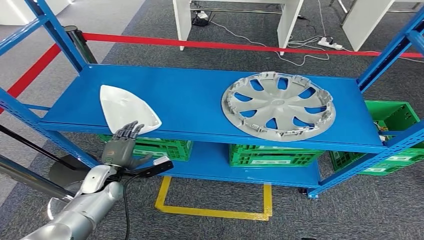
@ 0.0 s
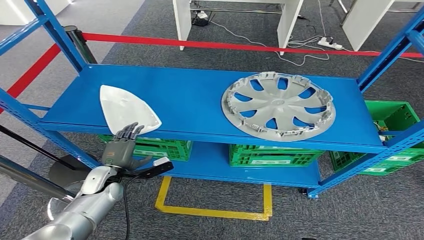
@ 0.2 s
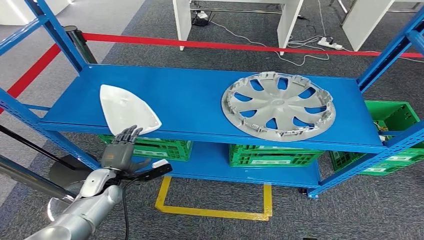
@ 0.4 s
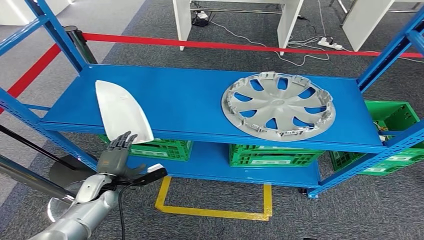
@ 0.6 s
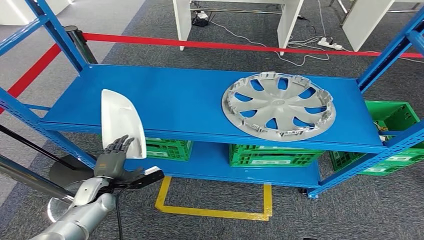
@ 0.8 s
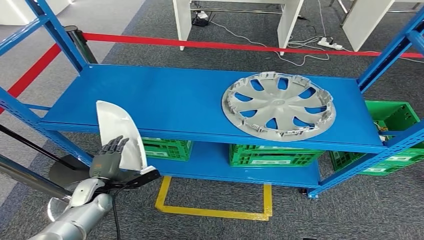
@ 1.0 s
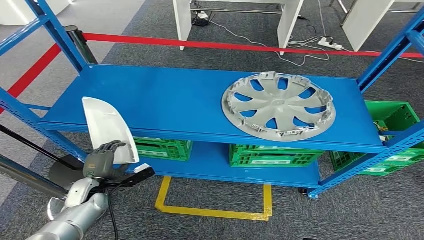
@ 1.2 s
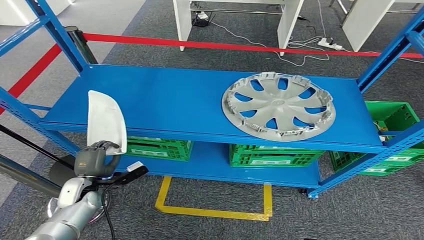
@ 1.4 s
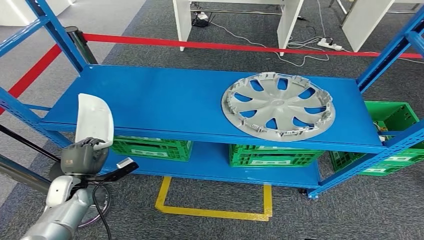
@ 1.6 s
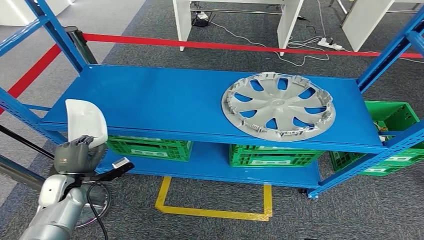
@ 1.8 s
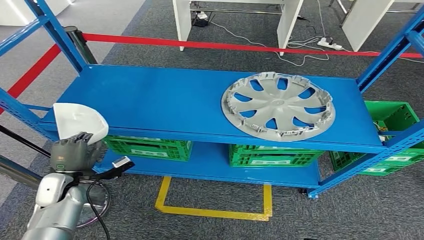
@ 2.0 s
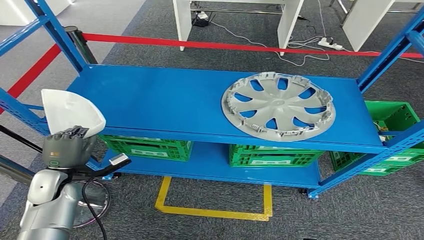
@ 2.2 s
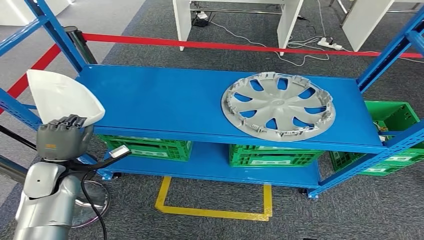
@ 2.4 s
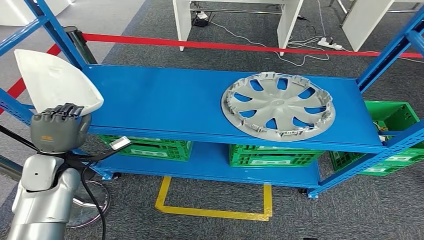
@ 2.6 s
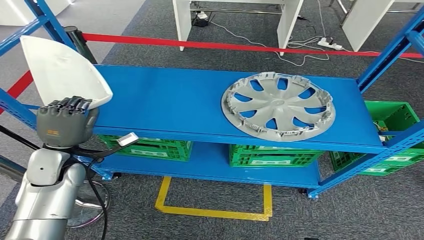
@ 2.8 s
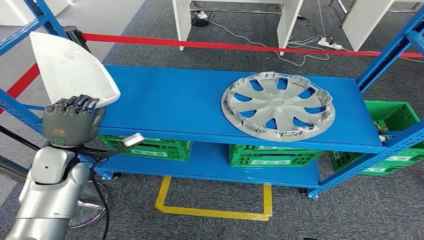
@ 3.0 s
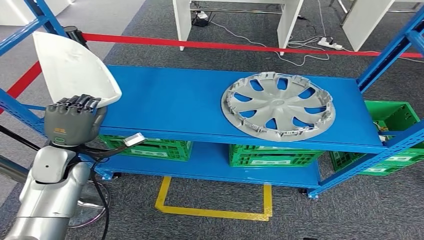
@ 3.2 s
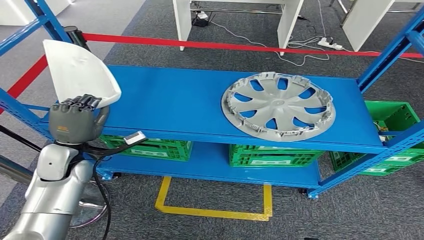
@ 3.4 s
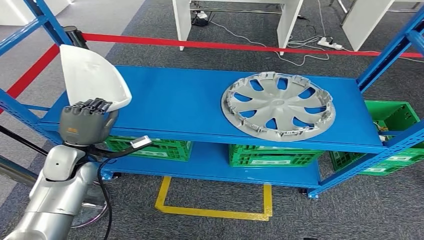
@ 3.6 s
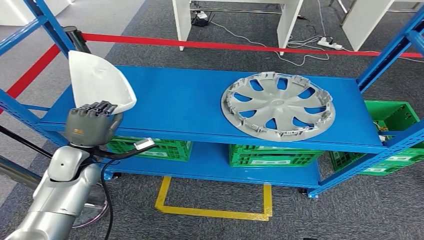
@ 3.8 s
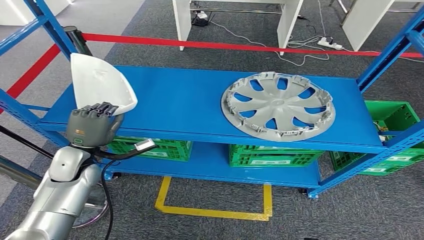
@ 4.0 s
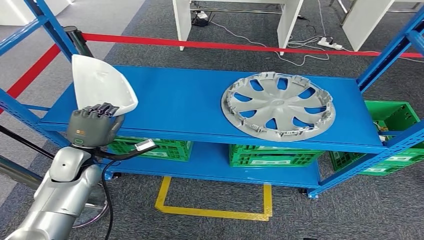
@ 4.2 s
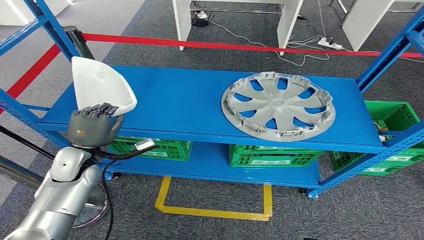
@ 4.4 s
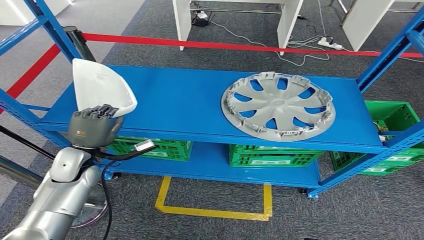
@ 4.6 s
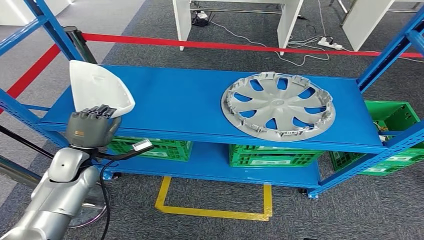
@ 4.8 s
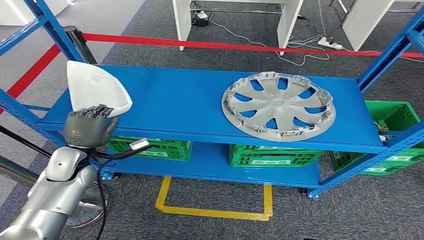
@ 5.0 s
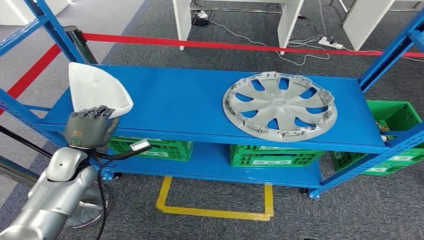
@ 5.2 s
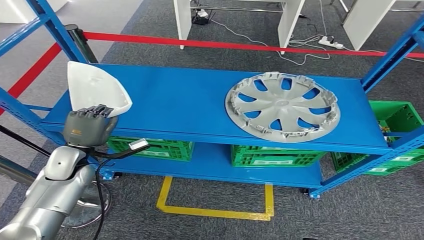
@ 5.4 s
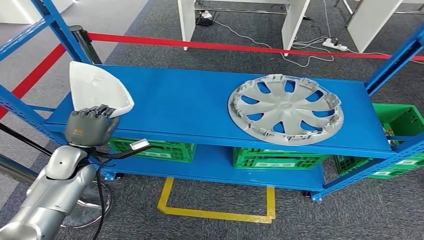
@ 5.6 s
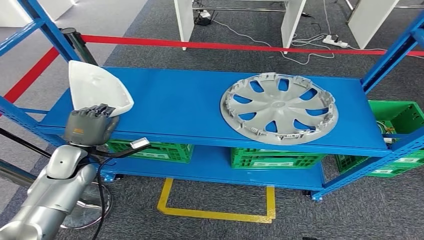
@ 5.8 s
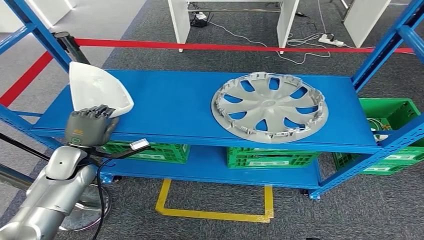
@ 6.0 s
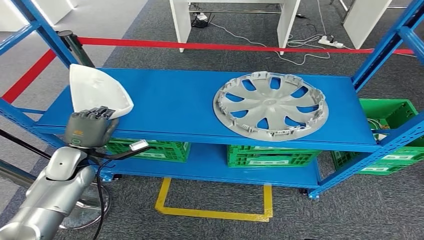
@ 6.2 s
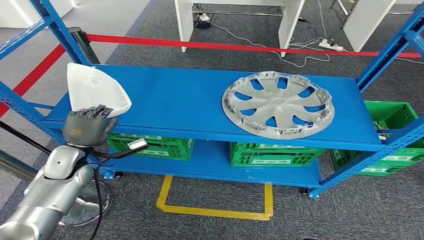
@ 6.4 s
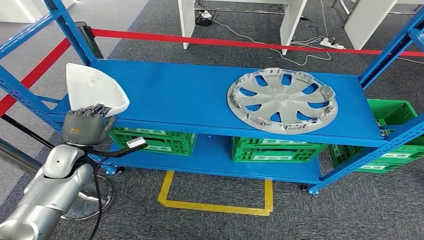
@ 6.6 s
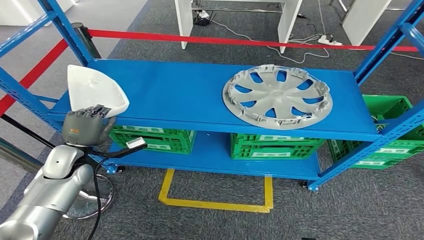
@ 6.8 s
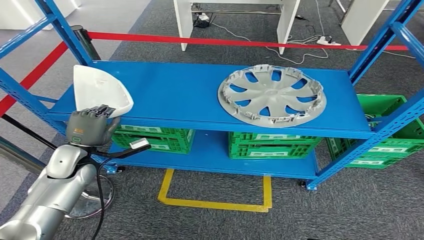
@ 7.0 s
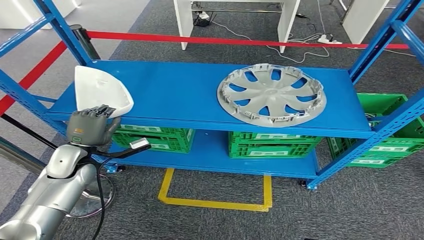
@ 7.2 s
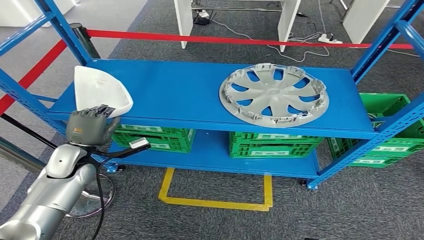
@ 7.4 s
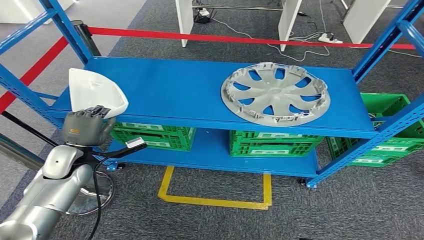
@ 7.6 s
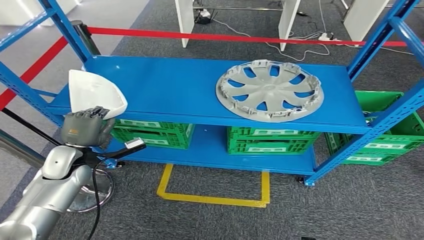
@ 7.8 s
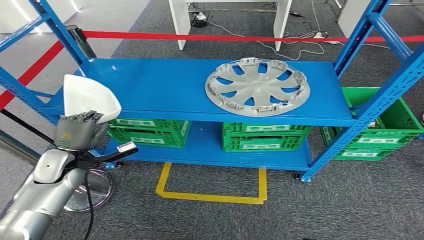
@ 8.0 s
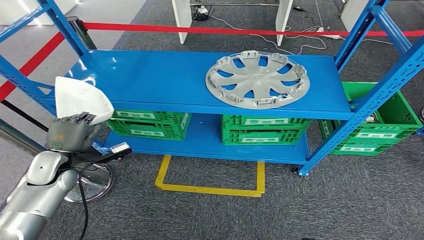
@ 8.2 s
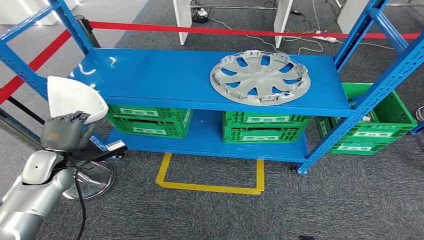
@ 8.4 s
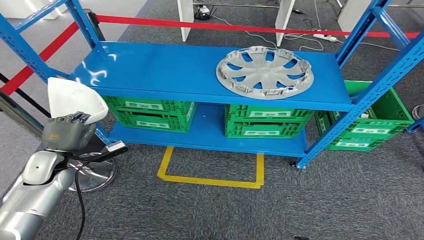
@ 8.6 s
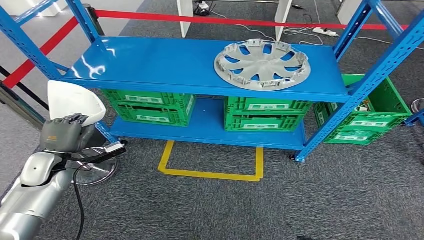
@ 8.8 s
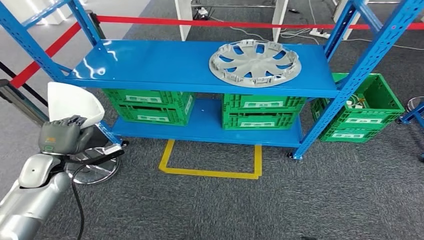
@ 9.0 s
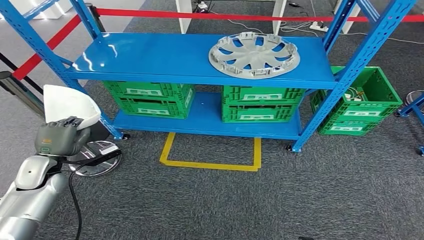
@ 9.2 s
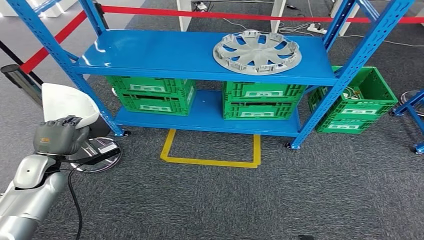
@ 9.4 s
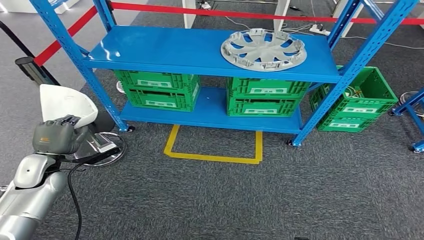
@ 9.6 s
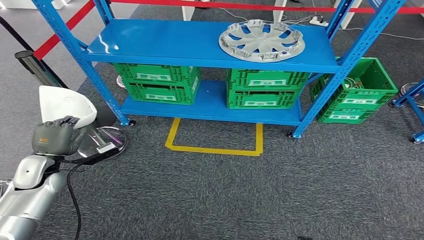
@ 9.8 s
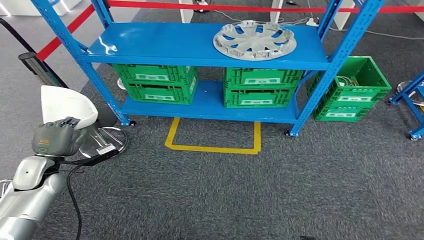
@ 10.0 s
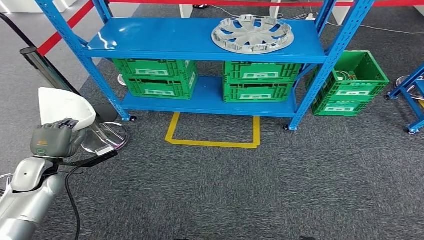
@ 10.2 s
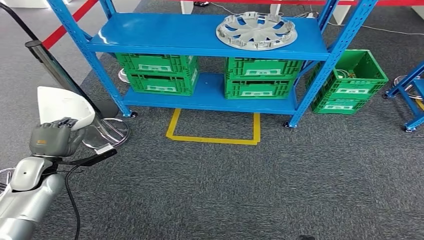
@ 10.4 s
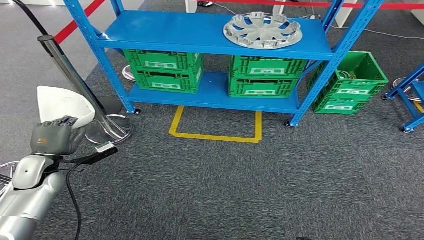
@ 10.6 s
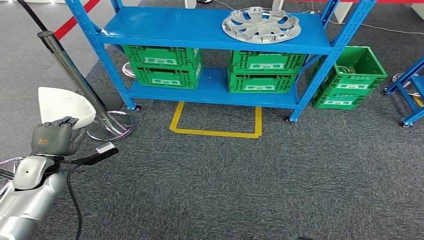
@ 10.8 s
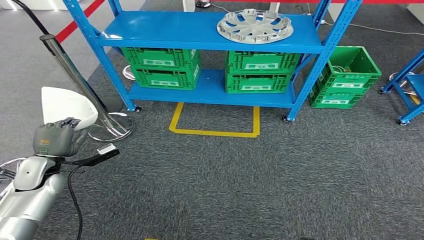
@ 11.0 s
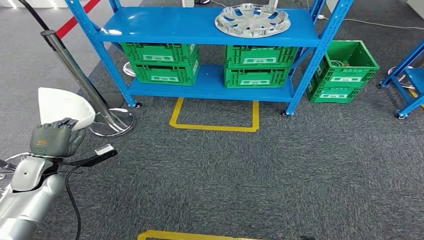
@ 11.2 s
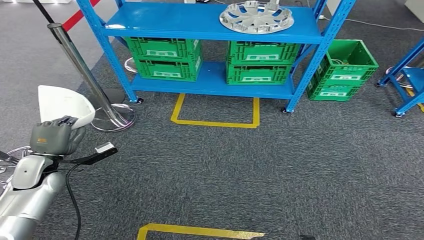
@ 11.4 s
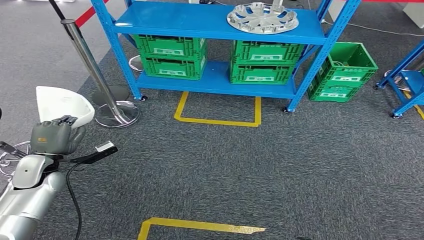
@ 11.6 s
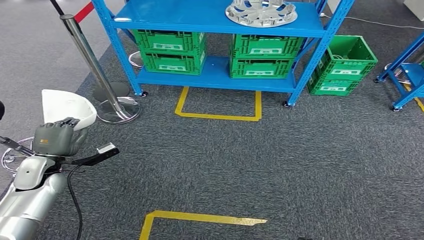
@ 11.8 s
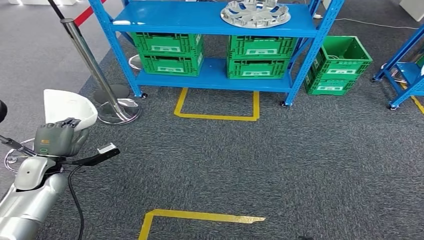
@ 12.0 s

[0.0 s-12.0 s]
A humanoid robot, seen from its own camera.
Step, 0.0 to 3.0 s: Pick up the small component from the shelf.
0.0 to 1.6 s: The left hand travels to the left by some 10 cm.
1.6 to 3.0 s: The left hand is displaced upward by approximately 15 cm.
3.0 to 4.4 s: There are only small adjustments of the hands.

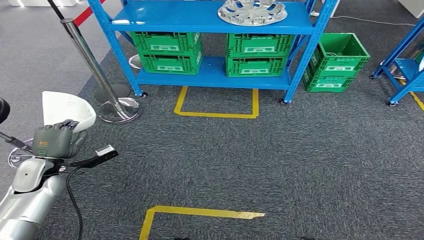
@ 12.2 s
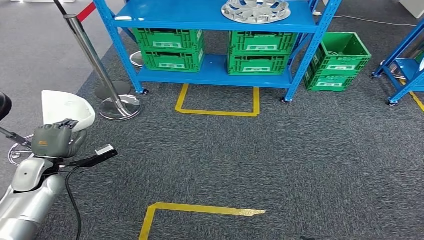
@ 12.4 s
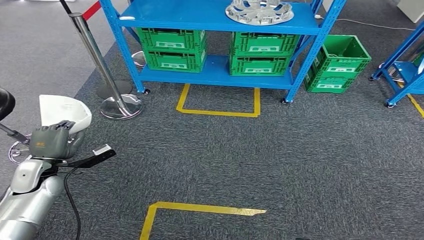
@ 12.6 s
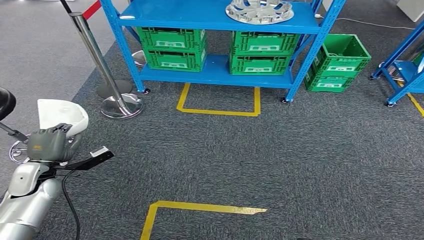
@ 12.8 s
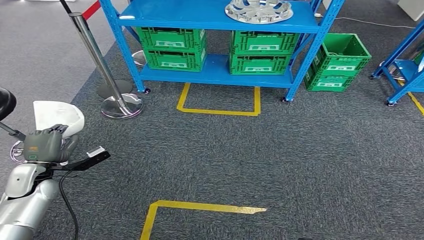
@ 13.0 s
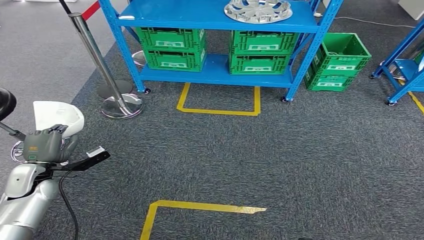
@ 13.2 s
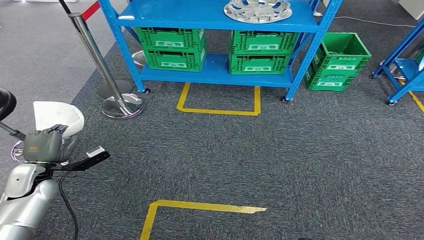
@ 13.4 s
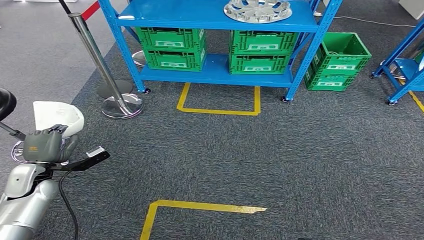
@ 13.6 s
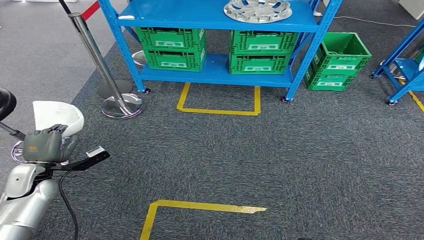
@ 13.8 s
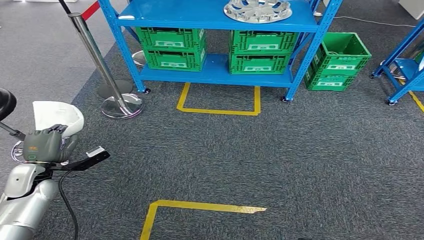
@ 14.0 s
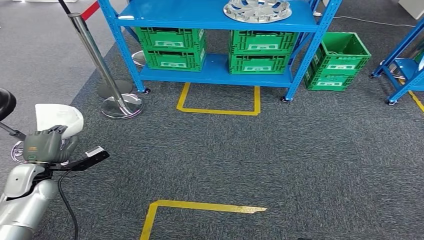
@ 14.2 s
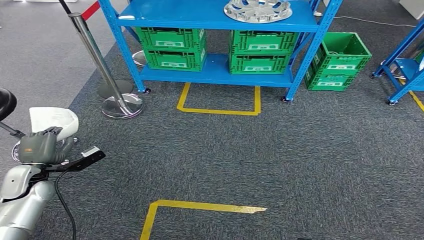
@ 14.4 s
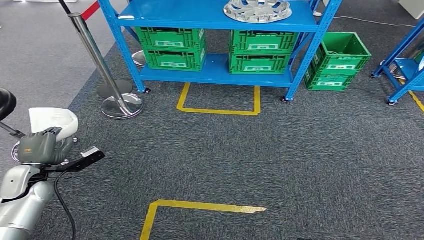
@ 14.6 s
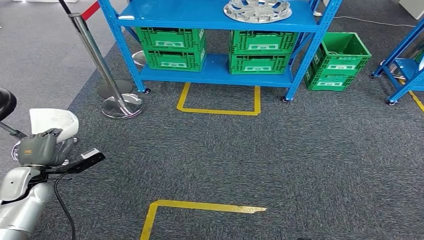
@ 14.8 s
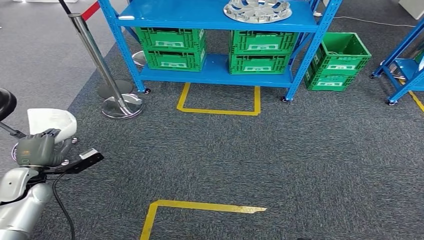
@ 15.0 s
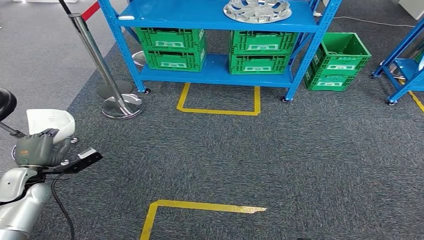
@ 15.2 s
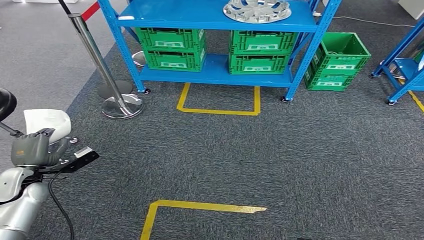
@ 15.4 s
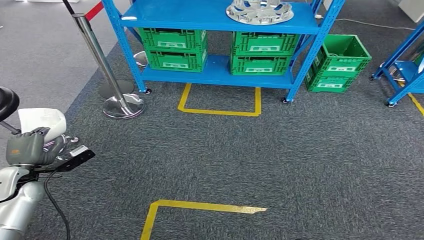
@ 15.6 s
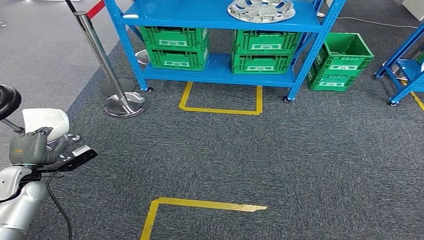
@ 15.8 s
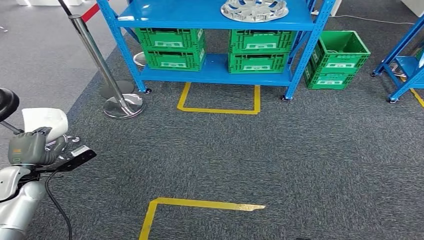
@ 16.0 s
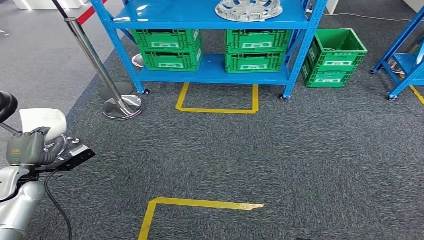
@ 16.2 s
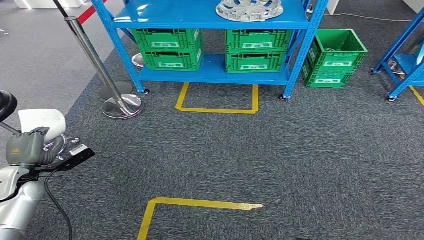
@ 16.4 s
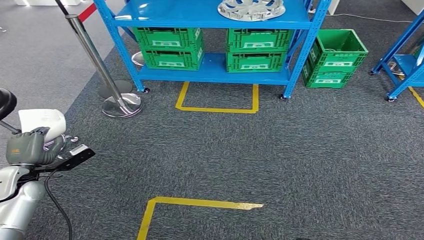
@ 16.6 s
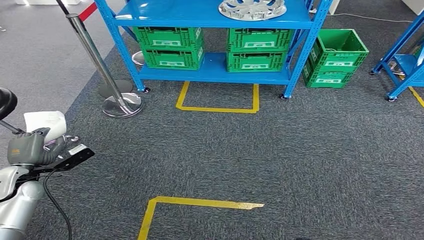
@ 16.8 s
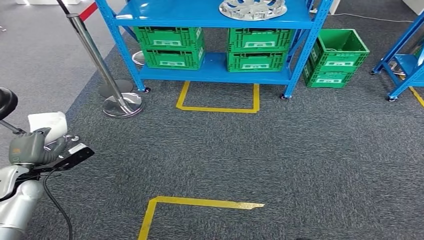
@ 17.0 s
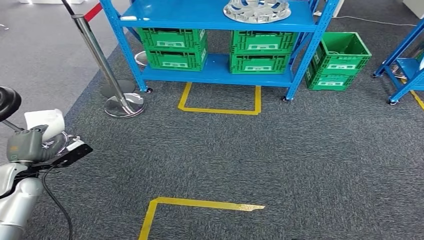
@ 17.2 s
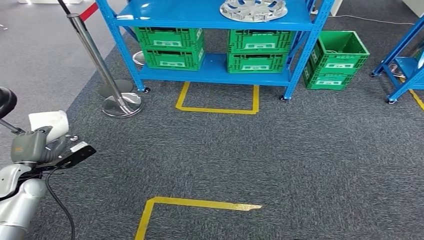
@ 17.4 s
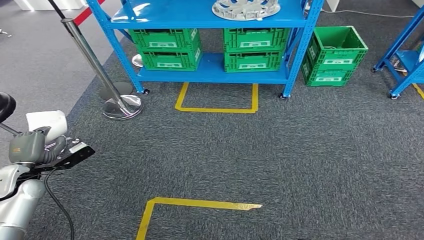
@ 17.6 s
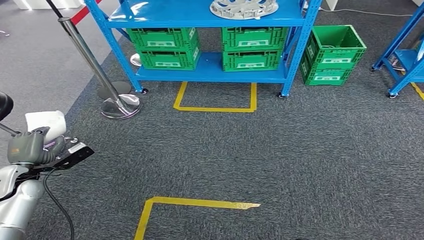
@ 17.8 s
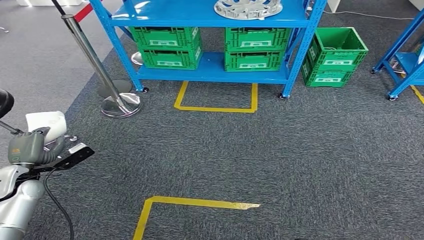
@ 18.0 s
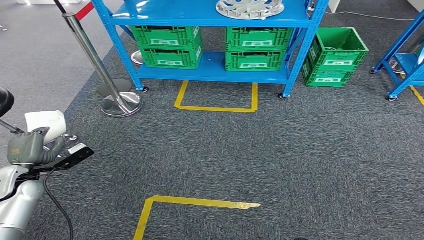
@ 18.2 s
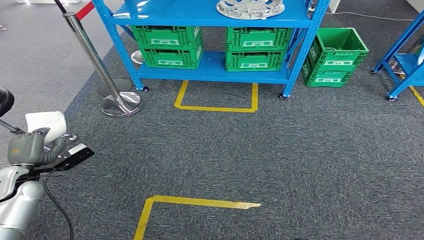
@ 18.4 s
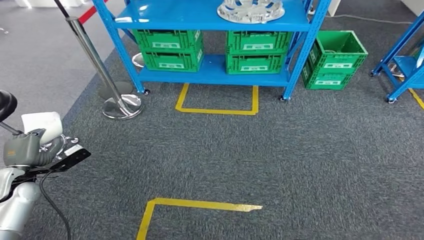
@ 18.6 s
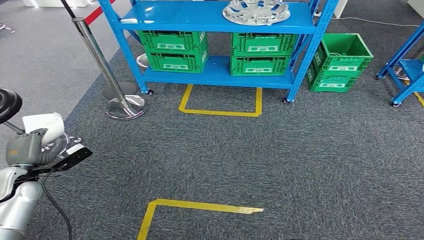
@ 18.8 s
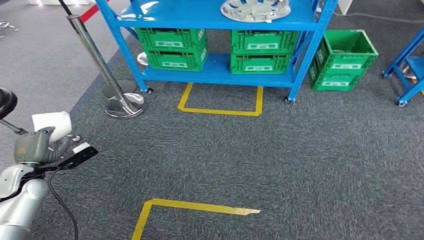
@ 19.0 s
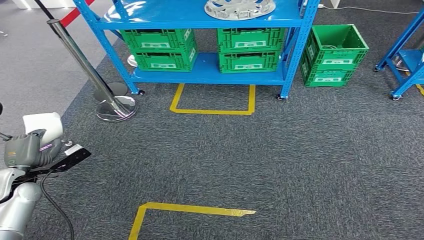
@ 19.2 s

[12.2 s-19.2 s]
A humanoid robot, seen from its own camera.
12.2 to 17.8 s: The hands move only a little.
17.8 to 19.2 s: The two hands keep their place.
